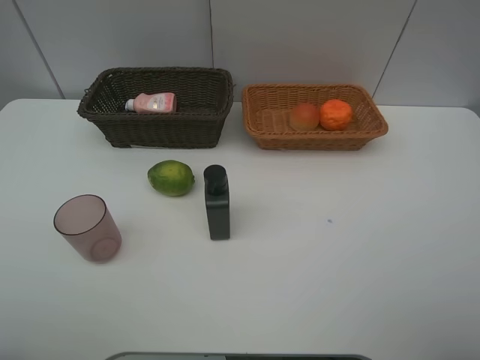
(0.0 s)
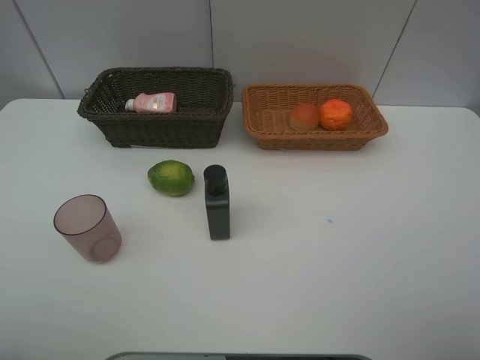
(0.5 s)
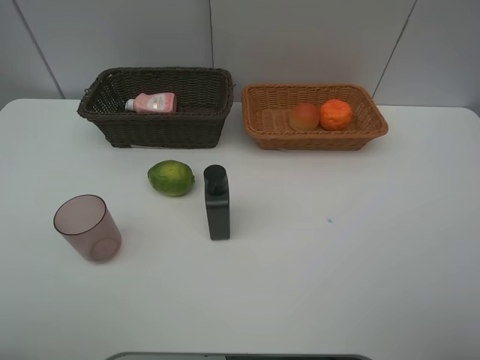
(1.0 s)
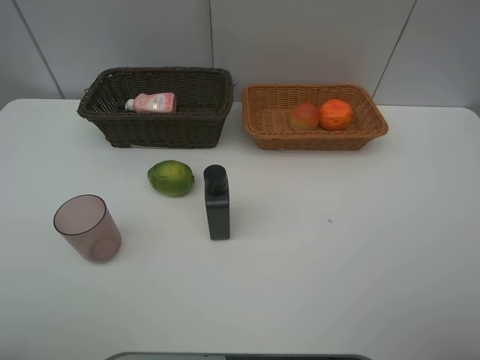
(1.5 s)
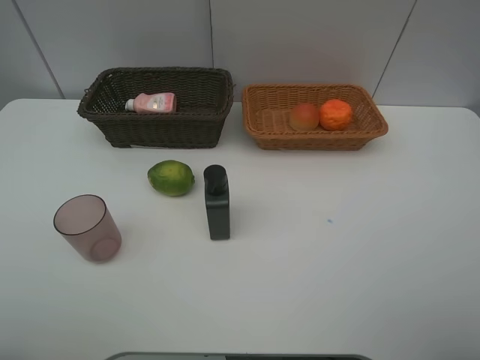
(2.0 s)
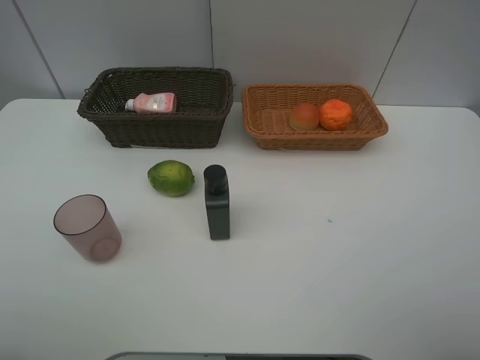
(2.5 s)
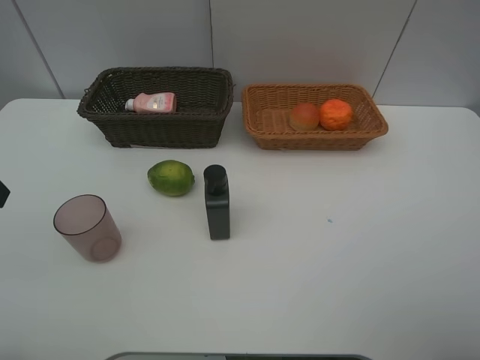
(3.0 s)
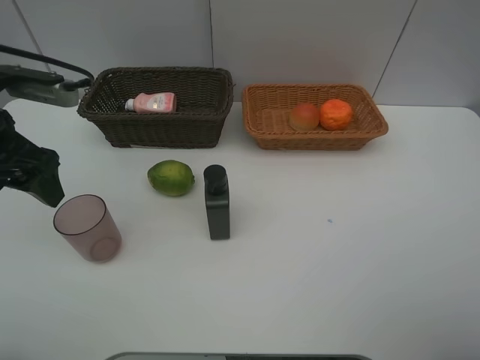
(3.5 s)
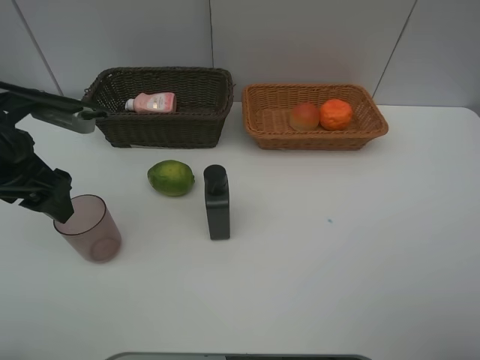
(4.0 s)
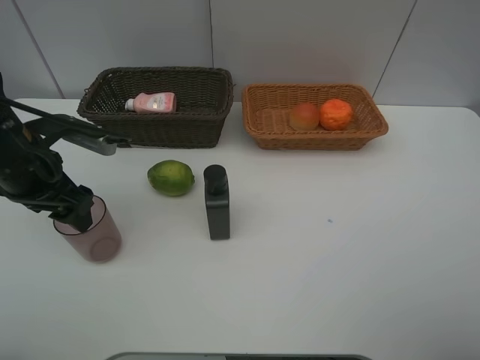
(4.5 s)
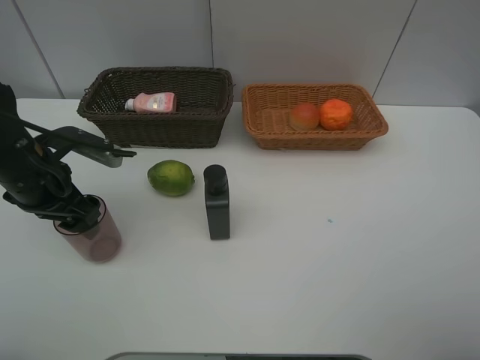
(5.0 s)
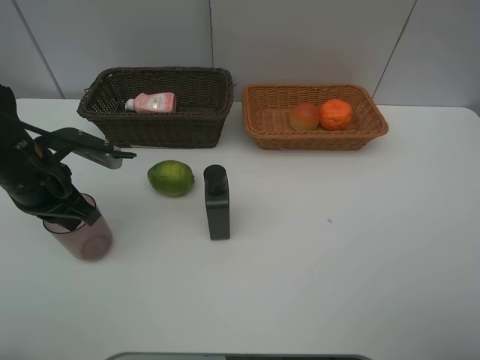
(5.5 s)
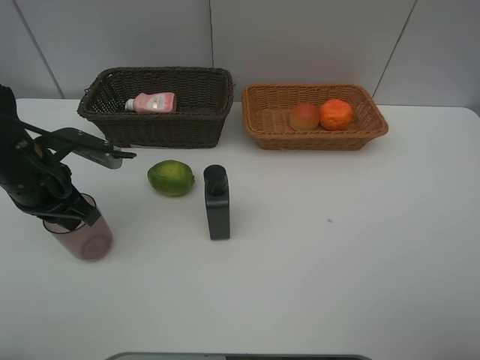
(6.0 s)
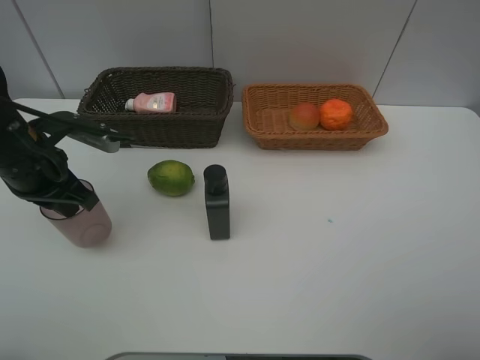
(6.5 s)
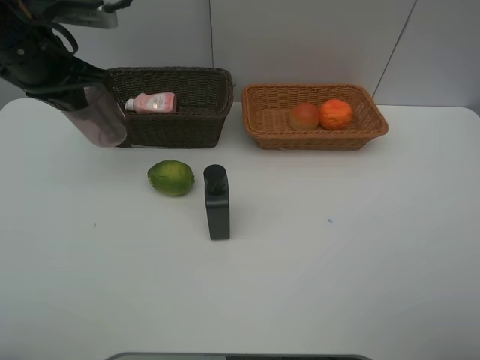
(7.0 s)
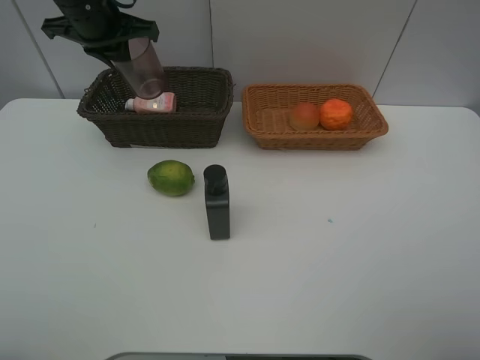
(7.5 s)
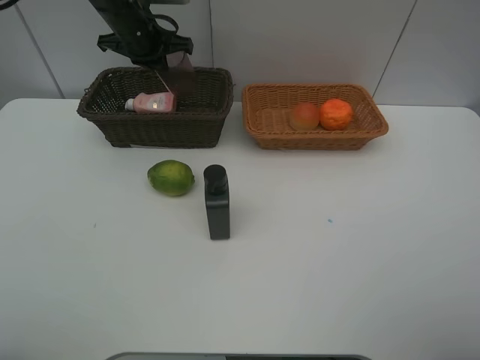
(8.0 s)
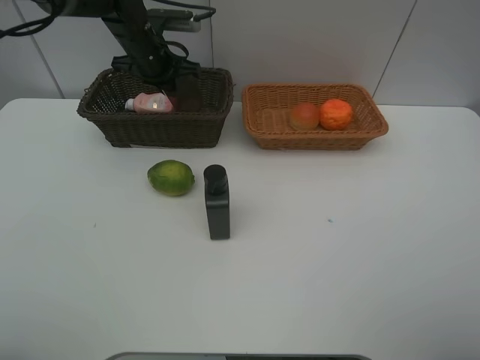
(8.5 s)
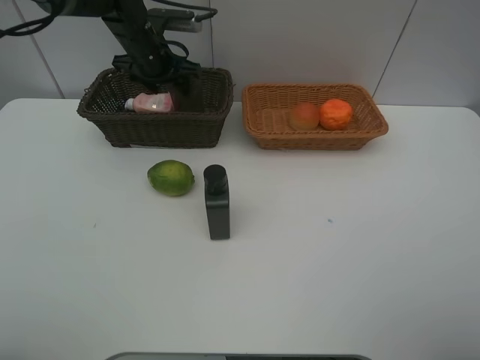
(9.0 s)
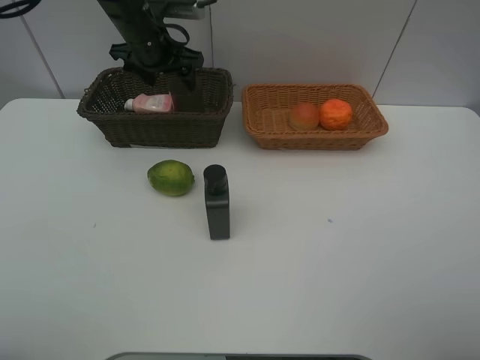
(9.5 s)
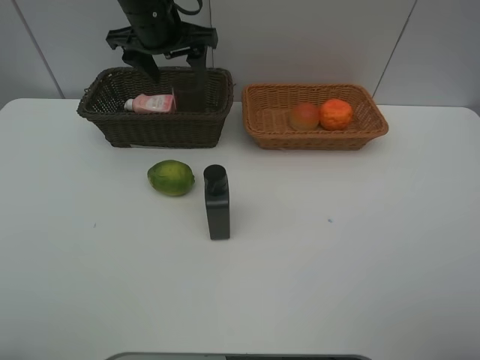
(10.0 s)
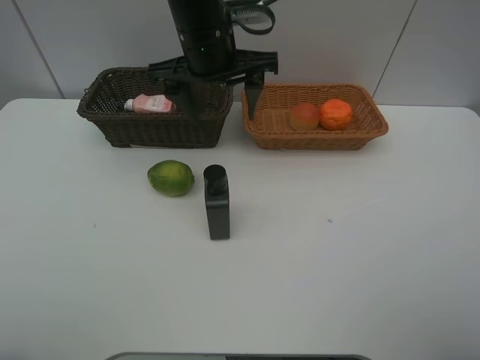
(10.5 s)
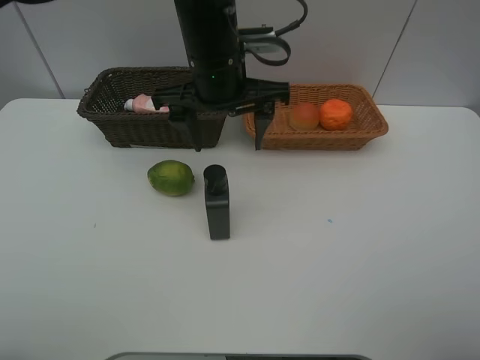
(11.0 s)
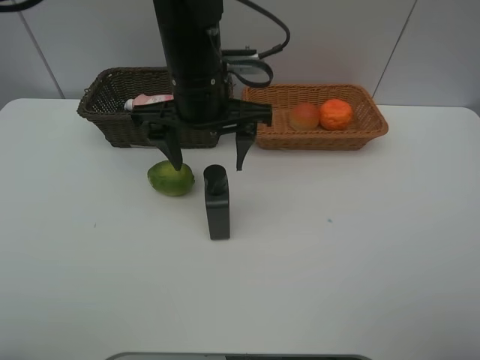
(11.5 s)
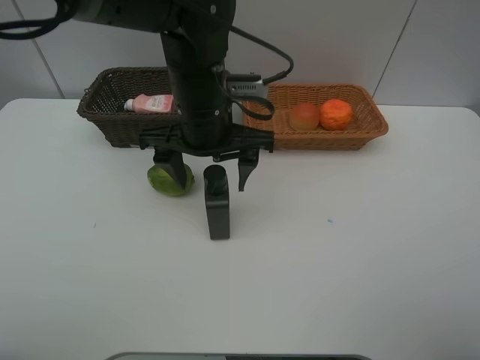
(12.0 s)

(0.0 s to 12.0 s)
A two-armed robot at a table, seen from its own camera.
Task of the whole recording: place multiple objects separately in different baskets.
2.0 s - 4.0 s: The left gripper goes roughly 25 cm forward.
4.0 s - 6.0 s: The left gripper heads downward, covering roughly 5 cm, and closes its fingers.
6.0 s - 8.0 s: The left gripper travels forward by approximately 25 cm.
8.0 s - 10.0 s: The left gripper shifts roughly 10 cm backward, upward and to the right, and opens.
10.0 s - 12.0 s: The left gripper shifts about 15 cm backward, to the right and downward.

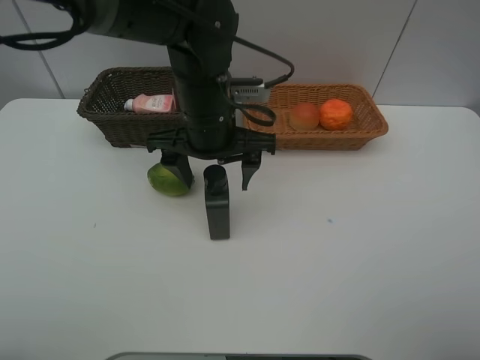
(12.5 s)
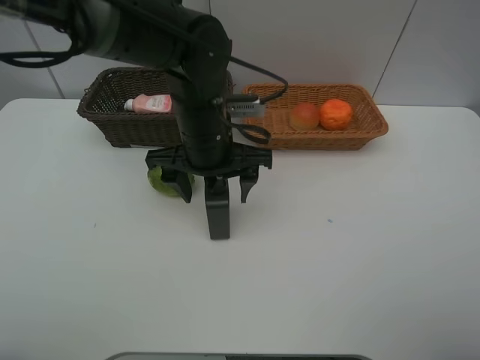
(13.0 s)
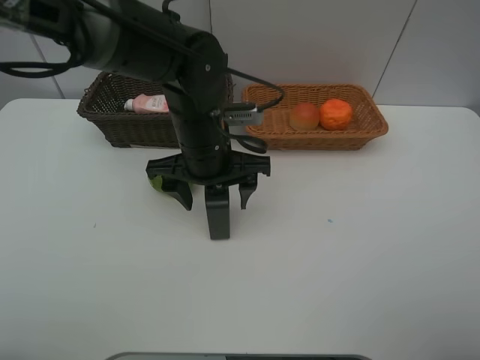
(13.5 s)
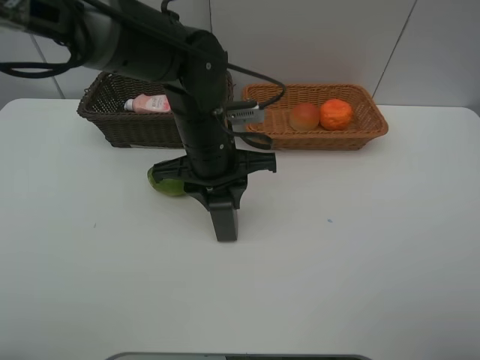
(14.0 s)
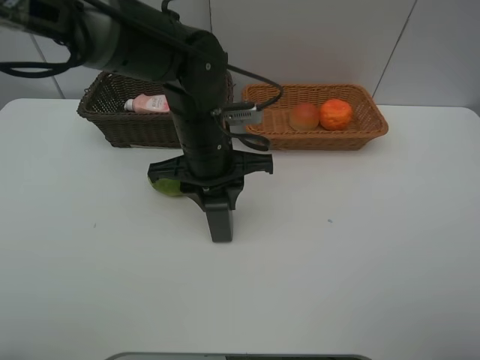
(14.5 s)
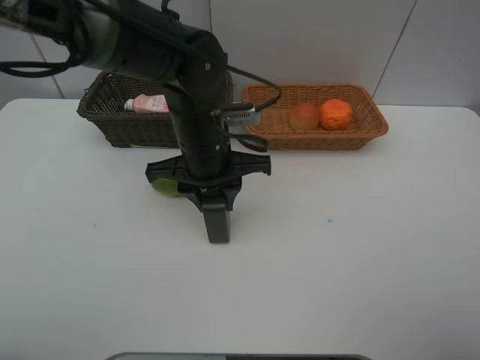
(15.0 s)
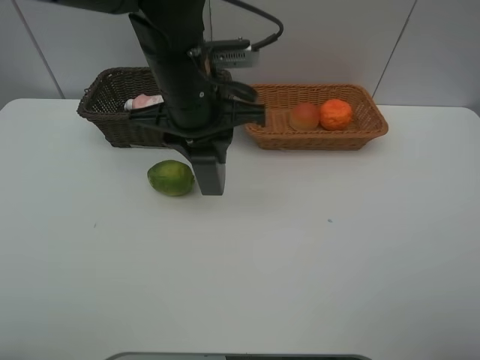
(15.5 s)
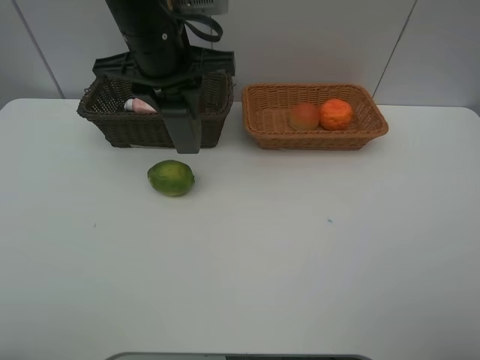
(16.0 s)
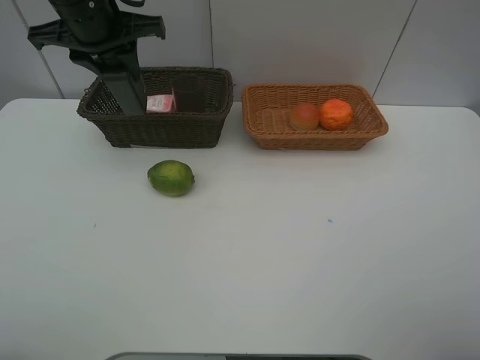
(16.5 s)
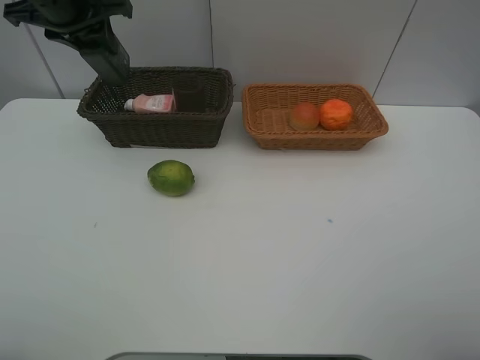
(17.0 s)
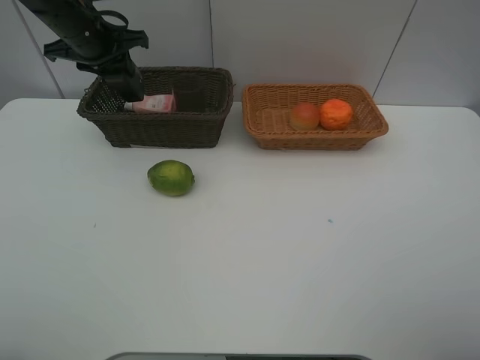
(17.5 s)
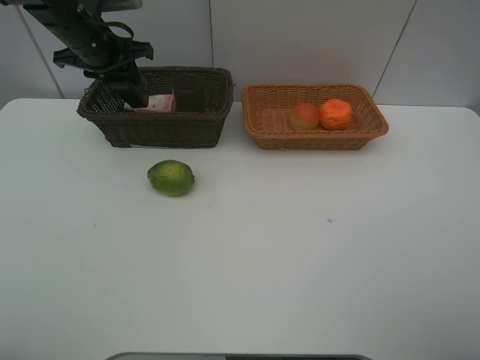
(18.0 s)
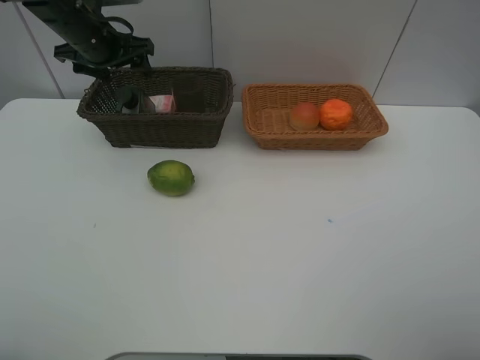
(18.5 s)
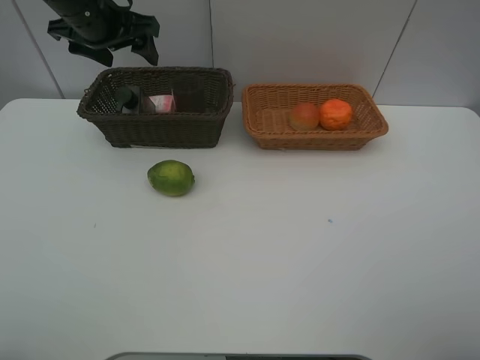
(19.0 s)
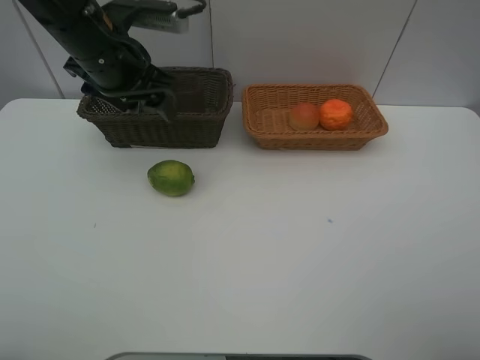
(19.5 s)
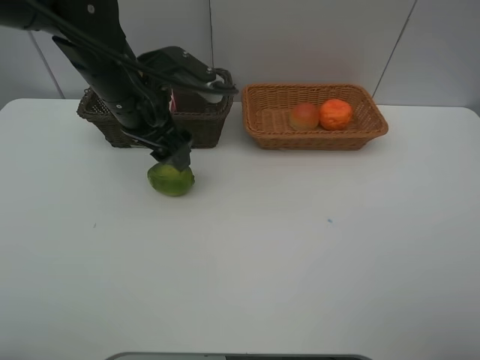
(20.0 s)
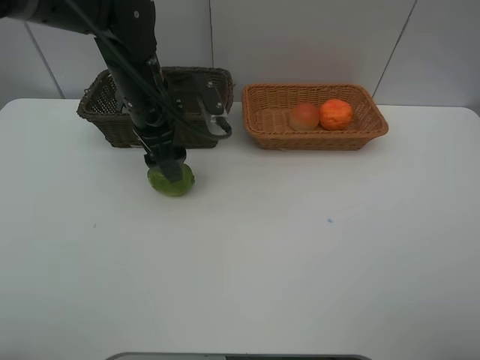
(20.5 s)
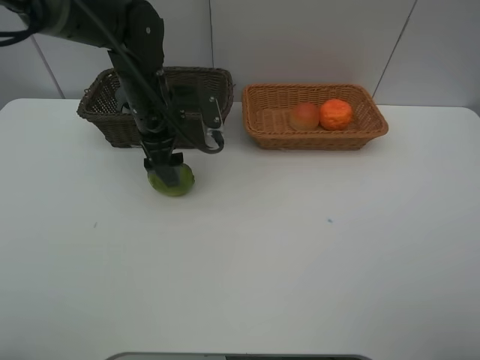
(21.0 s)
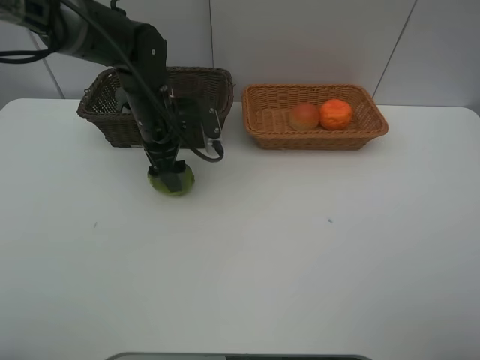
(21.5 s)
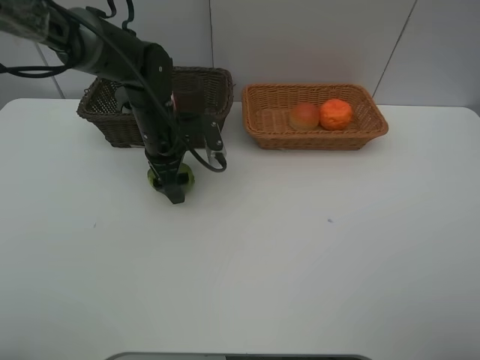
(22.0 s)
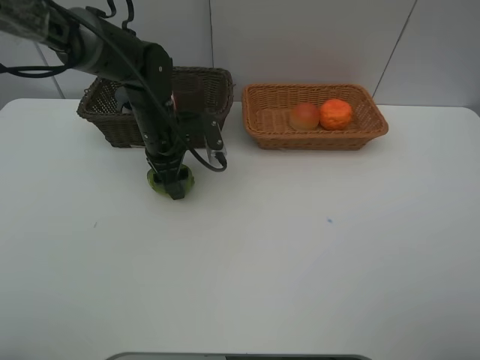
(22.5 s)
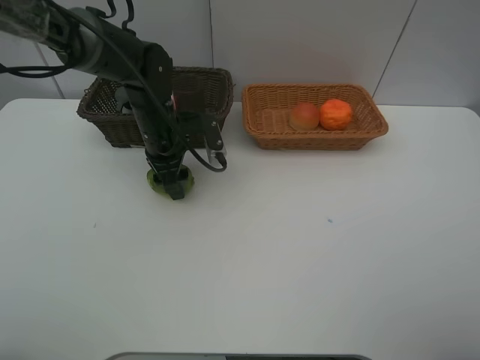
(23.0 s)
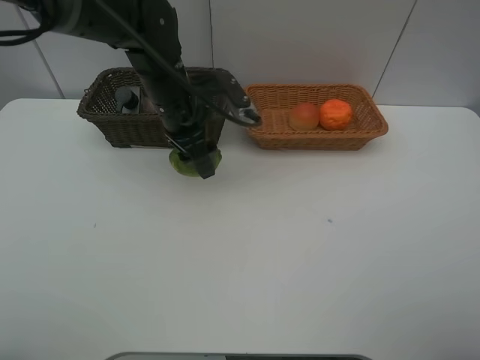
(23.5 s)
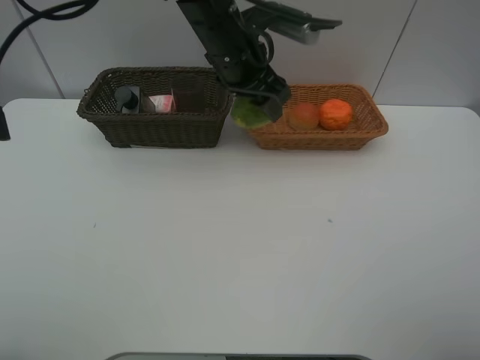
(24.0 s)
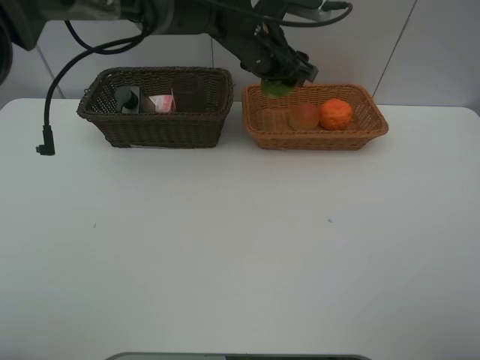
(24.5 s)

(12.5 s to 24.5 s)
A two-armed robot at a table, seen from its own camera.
Task of the whole recording: place multiple objects separately in different baskets.
12.5 s - 14.5 s: The left gripper closes.
14.5 s - 16.5 s: The left gripper is displaced to the left, upward and forward by about 20 cm.
16.5 s - 18.5 s: The left gripper moves forward and downward, some 10 cm, and opens up.
18.5 s - 20.5 s: The left gripper is displaced to the right and backward by about 15 cm.
20.5 s - 22.5 s: The left gripper travels downward by roughly 10 cm.
22.5 s - 24.5 s: The left gripper is displaced to the right, upward and forward by approximately 20 cm.

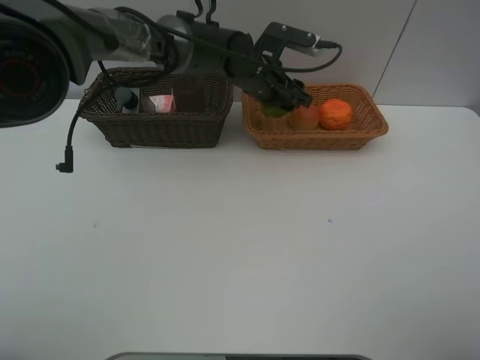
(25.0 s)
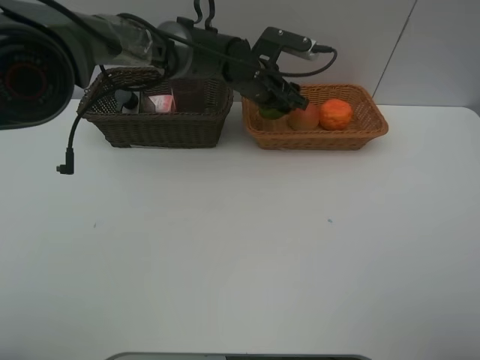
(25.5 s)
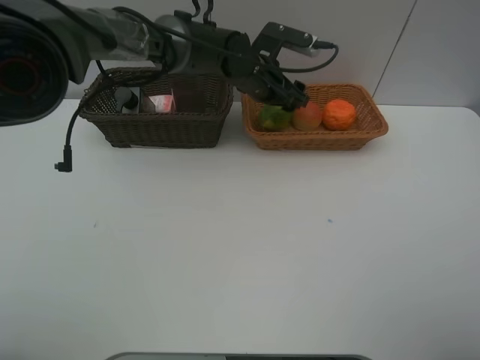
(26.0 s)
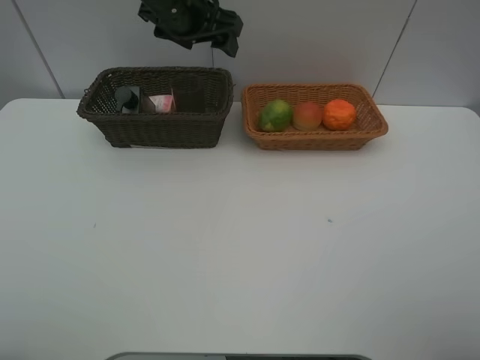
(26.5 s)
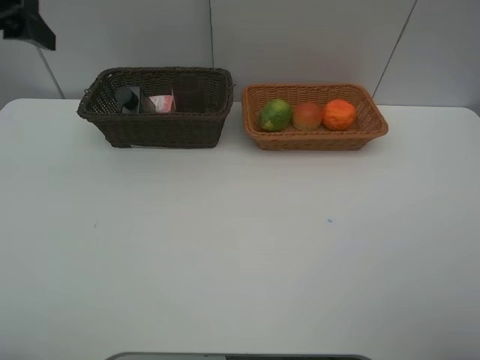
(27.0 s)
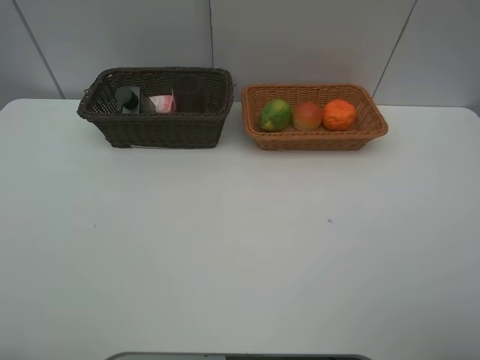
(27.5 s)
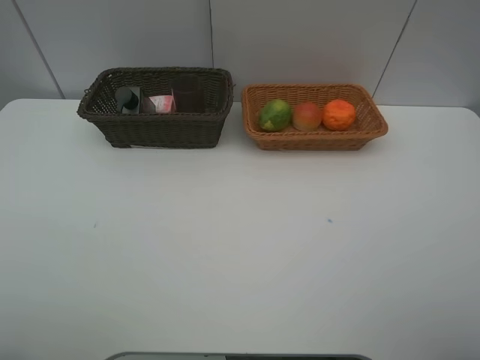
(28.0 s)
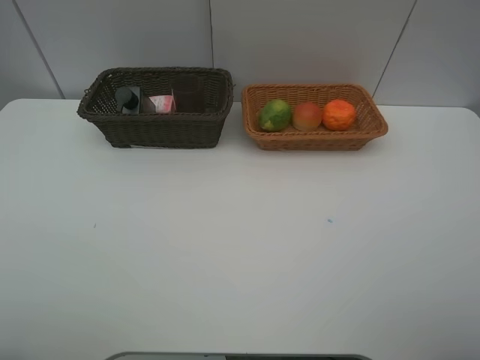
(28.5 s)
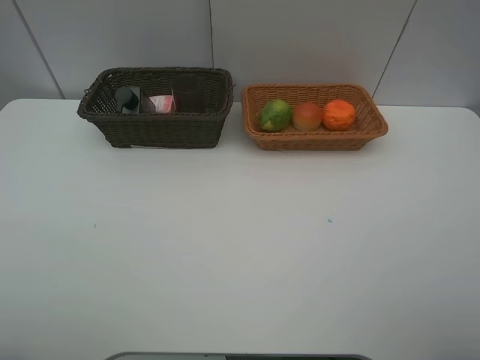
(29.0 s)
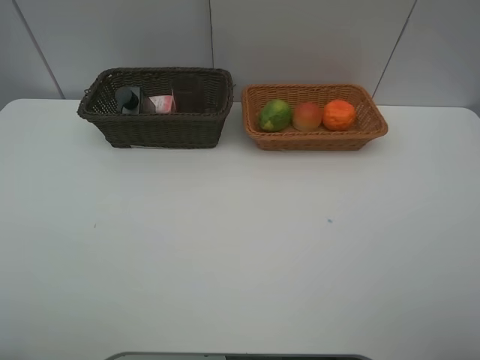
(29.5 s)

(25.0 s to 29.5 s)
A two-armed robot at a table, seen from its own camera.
Task of the whole recording: place multiple objects separately in different baskets.
25.0 s - 27.0 s: The left gripper is displaced to the left, upward and backward by approximately 40 cm.
27.0 s - 29.5 s: The left gripper goes roughly 25 cm backward.
